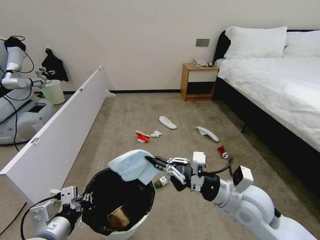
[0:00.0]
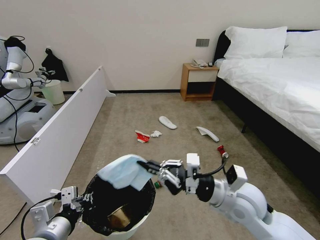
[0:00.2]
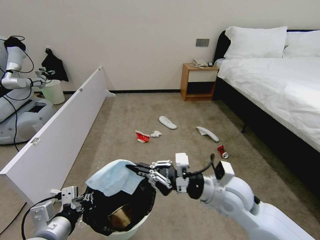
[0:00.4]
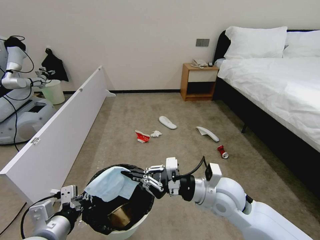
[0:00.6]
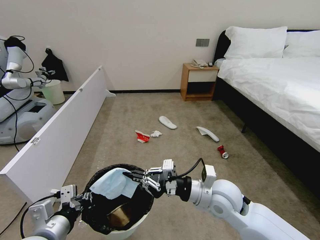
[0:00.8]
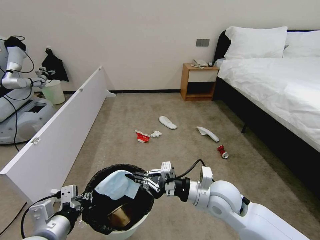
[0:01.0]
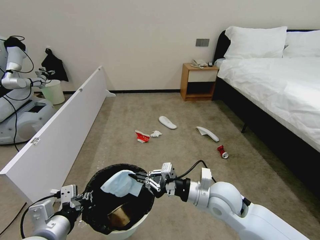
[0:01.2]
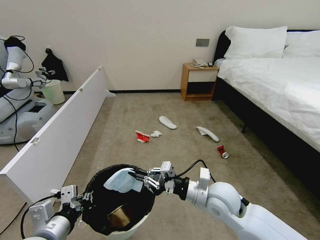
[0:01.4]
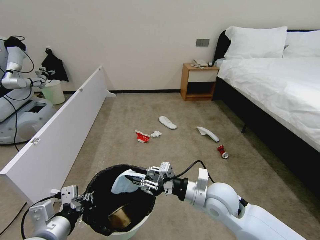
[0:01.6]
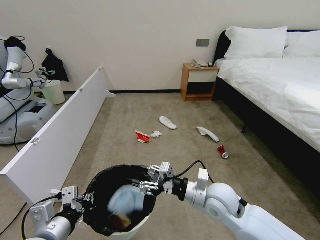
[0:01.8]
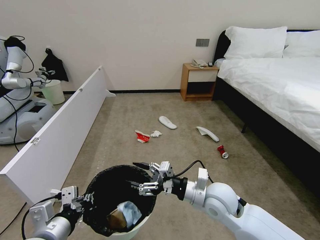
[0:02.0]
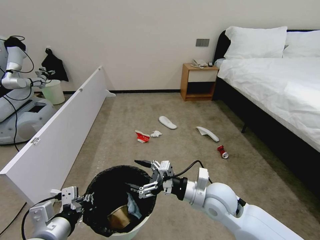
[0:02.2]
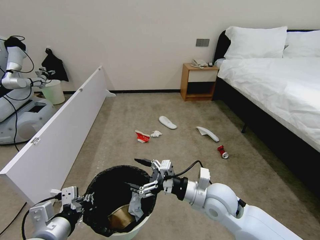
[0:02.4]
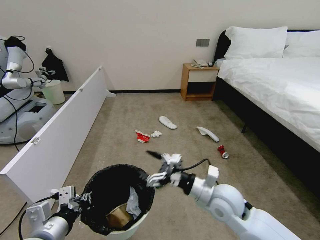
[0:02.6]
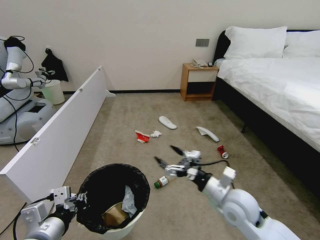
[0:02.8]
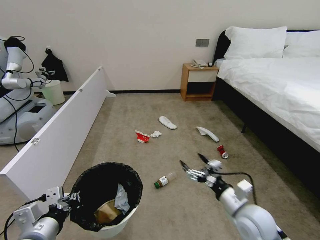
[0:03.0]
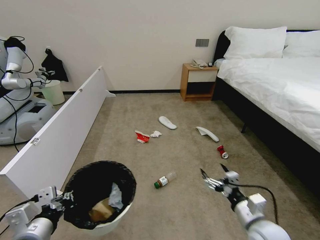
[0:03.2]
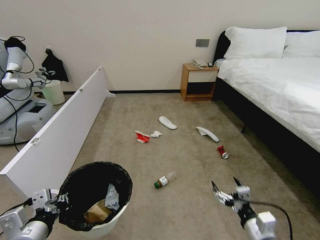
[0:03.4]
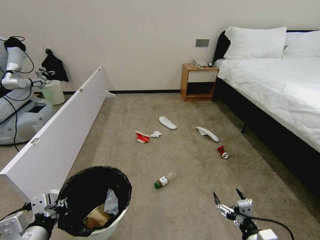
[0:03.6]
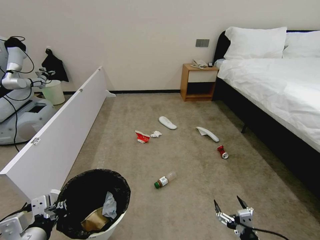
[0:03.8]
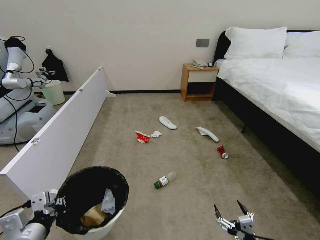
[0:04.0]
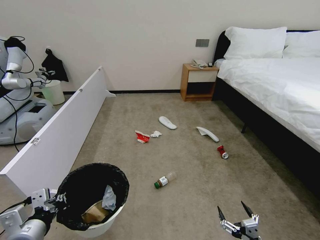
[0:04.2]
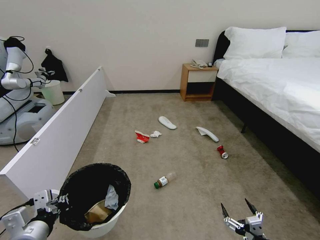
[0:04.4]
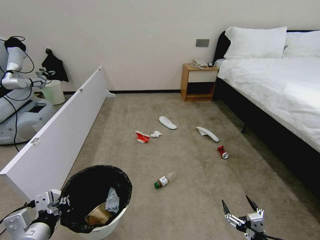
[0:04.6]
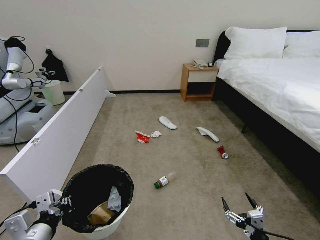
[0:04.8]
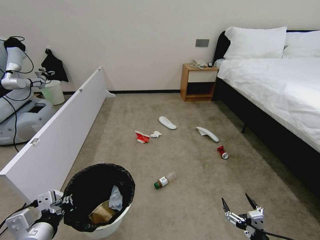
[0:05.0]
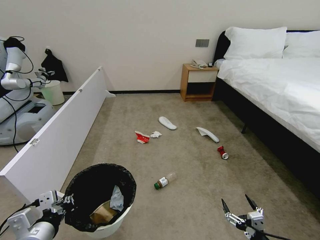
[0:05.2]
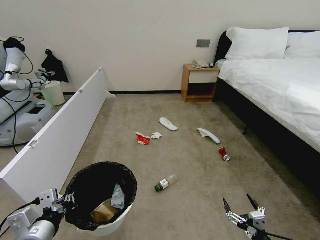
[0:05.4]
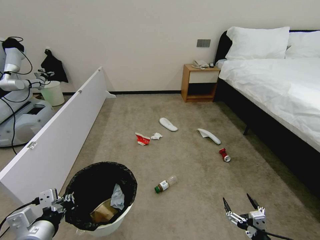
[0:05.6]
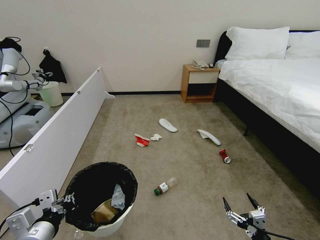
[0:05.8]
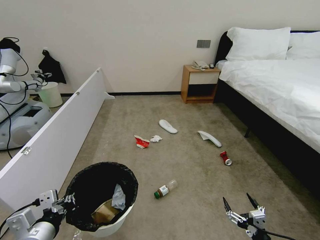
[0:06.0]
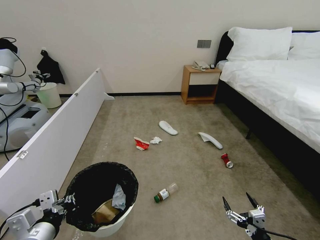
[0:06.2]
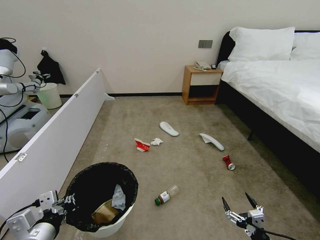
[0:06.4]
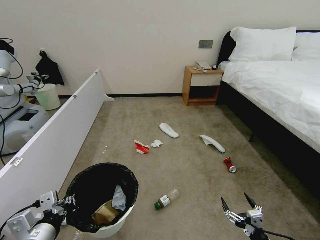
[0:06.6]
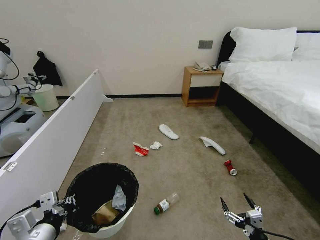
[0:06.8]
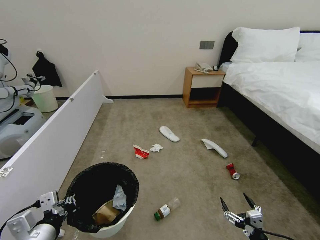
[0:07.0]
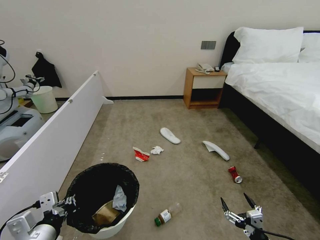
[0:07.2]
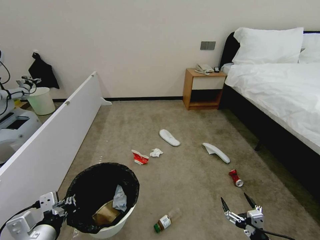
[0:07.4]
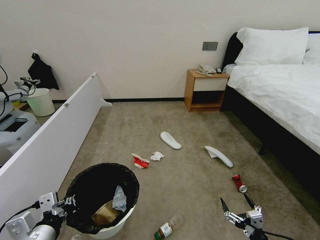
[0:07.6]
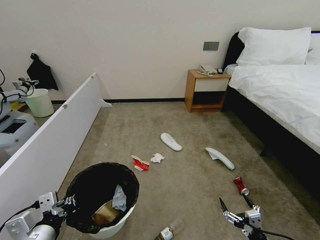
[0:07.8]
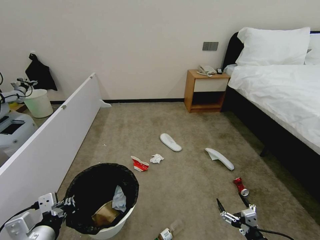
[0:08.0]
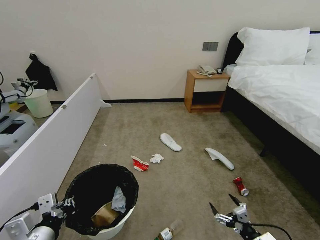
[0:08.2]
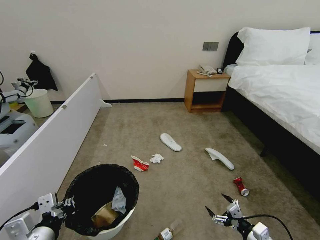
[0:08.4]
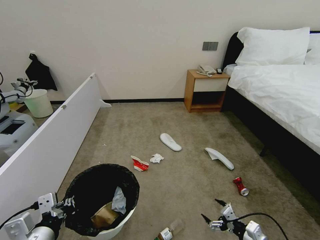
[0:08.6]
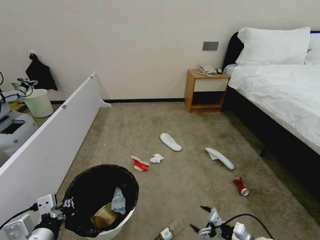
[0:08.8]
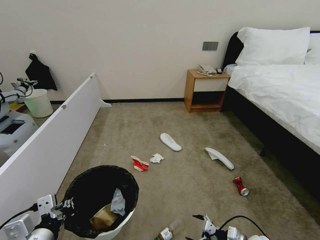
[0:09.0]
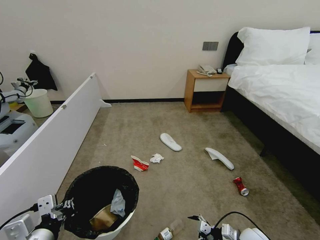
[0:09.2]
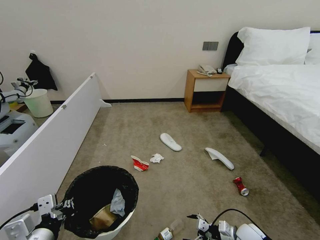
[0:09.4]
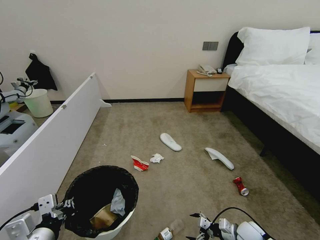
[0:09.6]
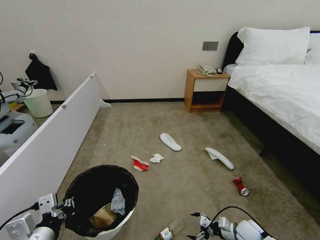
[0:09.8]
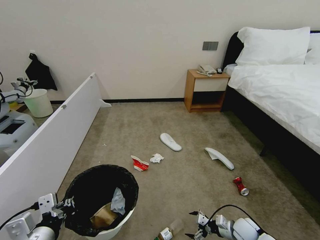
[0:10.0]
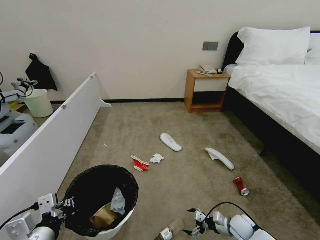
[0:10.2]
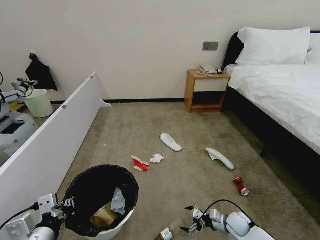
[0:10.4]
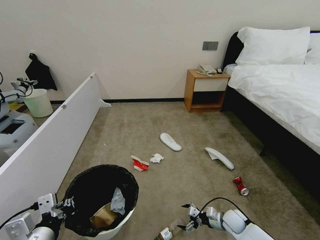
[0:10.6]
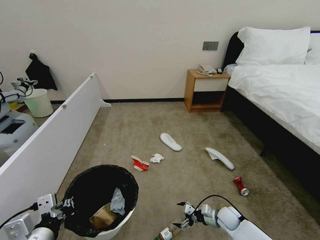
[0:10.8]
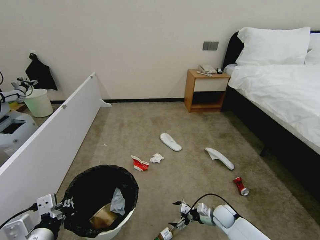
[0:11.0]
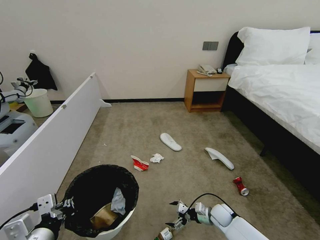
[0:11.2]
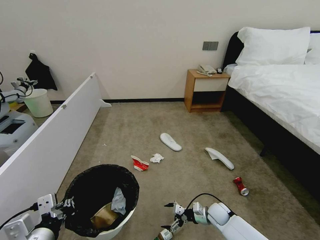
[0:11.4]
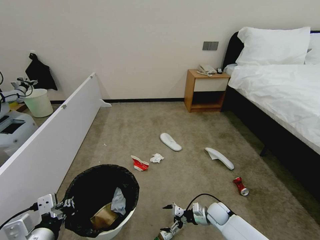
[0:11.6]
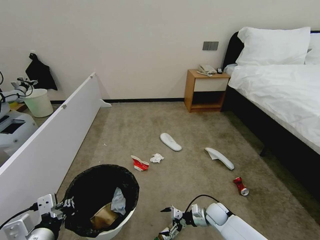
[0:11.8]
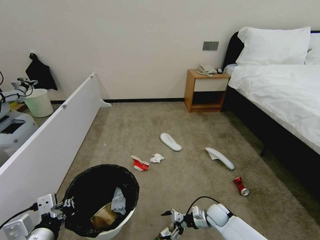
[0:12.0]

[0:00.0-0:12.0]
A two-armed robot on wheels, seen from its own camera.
Task of the whole recording: Pick up the trash bin, then pick up the garbage from the floor and place it into the trash bin.
0:00.0 to 0:01.6: The right gripper moves to the left, approximately 5 cm.
0:01.6 to 0:03.0: The right gripper moves to the right, some 10 cm, and opens up.
0:03.0 to 0:04.4: The right gripper moves backward and downward, about 20 cm.
0:04.4 to 0:06.0: There are only small adjustments of the grippers.
0:06.0 to 0:07.6: The two grippers keep their place.
0:07.6 to 0:09.0: The right gripper shifts roughly 15 cm forward and downward.
0:09.0 to 0:10.4: The right gripper shifts approximately 10 cm forward.
0:10.4 to 0:12.0: The right gripper travels to the left by some 10 cm.

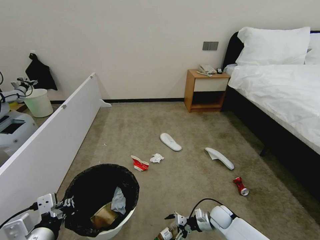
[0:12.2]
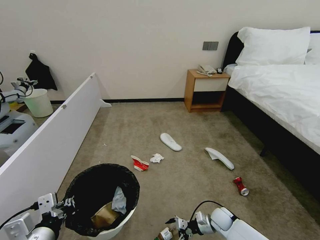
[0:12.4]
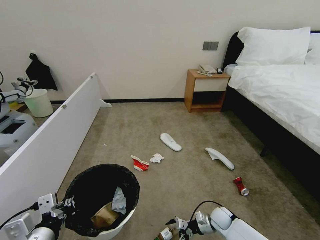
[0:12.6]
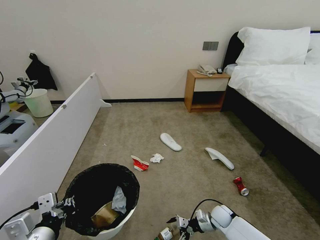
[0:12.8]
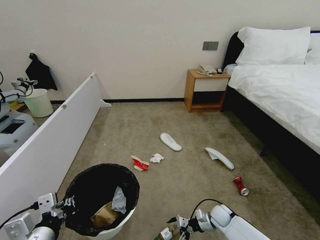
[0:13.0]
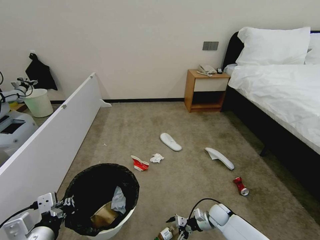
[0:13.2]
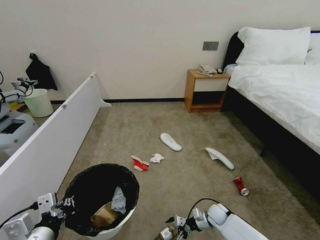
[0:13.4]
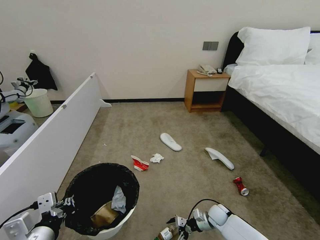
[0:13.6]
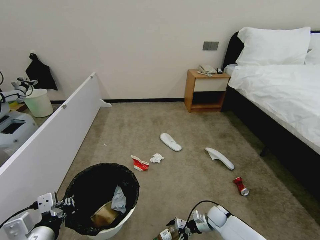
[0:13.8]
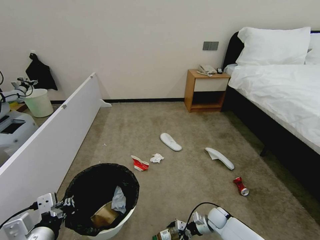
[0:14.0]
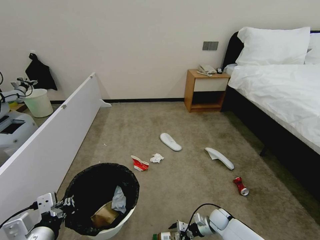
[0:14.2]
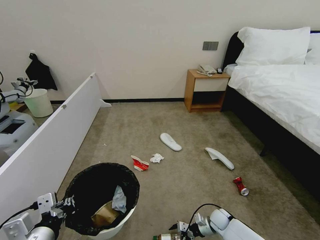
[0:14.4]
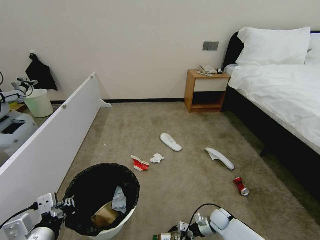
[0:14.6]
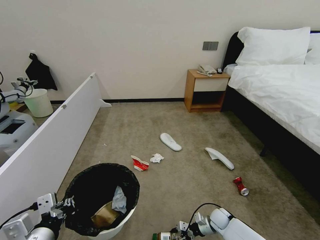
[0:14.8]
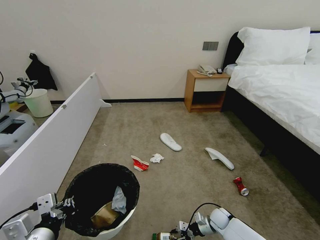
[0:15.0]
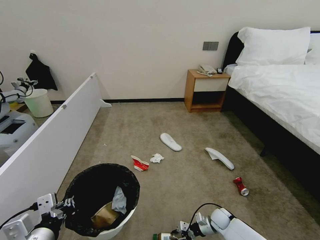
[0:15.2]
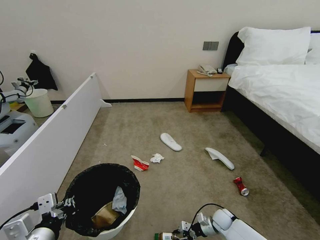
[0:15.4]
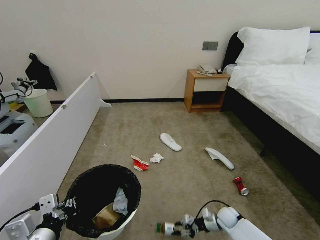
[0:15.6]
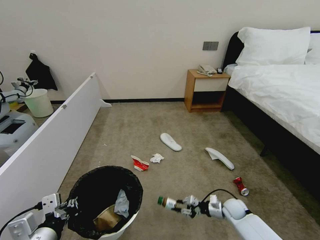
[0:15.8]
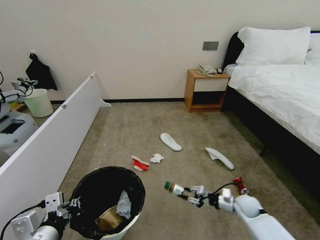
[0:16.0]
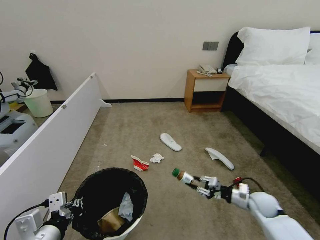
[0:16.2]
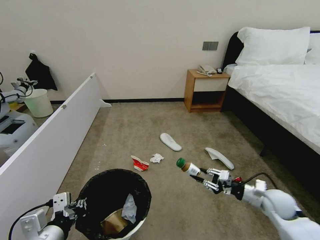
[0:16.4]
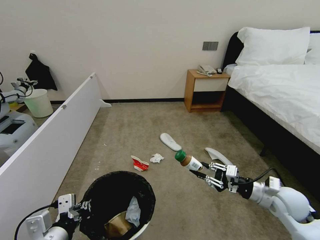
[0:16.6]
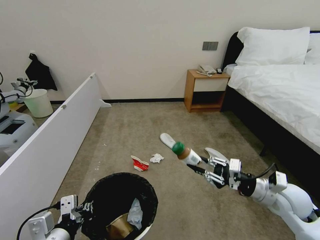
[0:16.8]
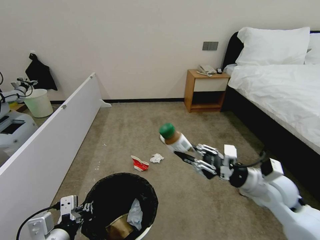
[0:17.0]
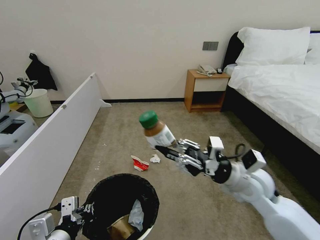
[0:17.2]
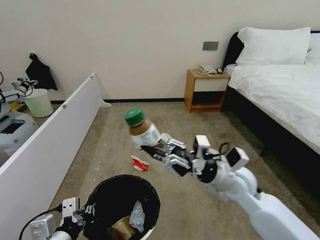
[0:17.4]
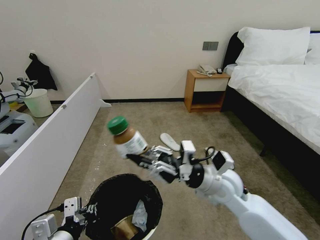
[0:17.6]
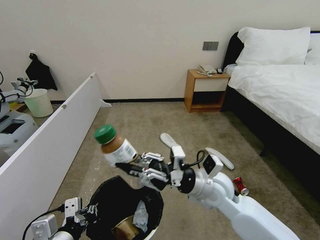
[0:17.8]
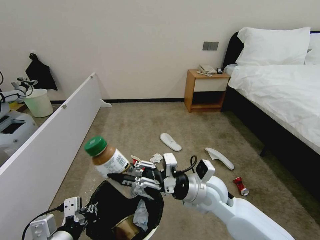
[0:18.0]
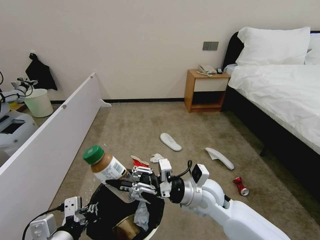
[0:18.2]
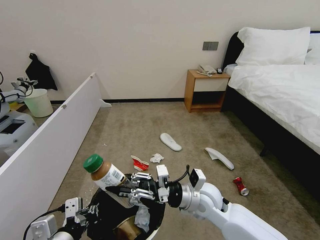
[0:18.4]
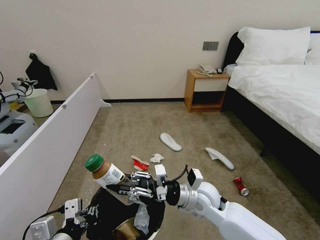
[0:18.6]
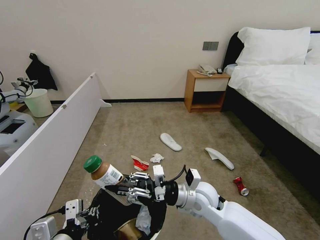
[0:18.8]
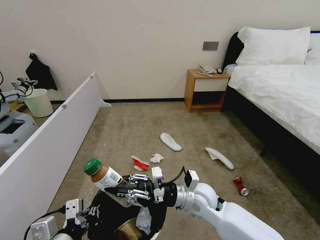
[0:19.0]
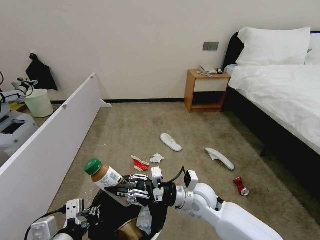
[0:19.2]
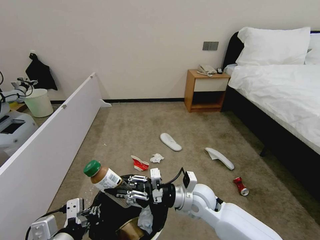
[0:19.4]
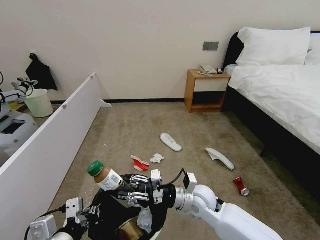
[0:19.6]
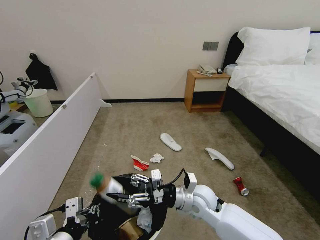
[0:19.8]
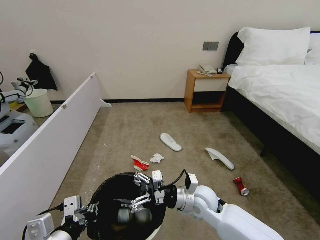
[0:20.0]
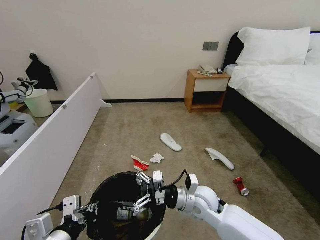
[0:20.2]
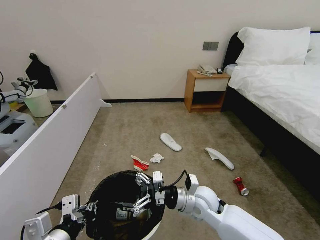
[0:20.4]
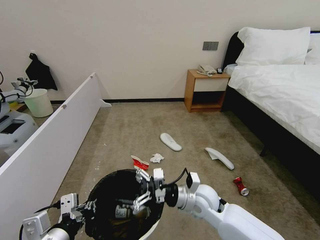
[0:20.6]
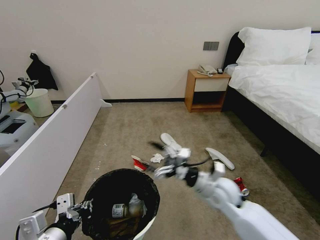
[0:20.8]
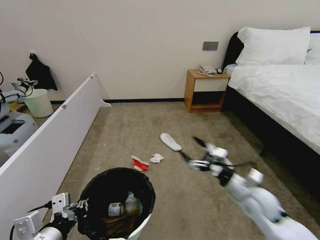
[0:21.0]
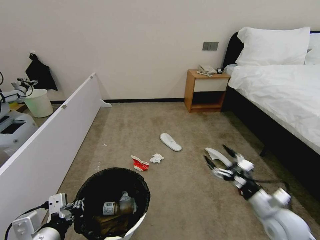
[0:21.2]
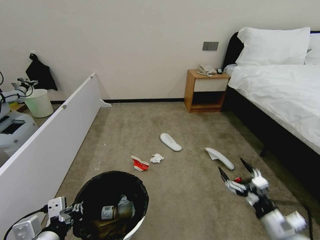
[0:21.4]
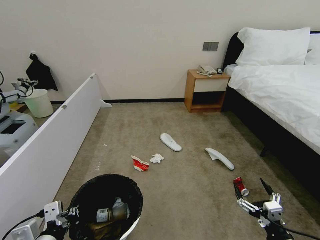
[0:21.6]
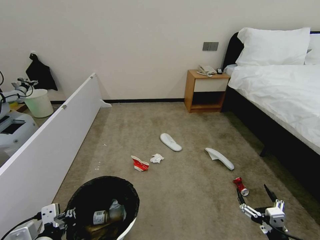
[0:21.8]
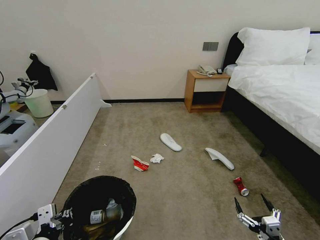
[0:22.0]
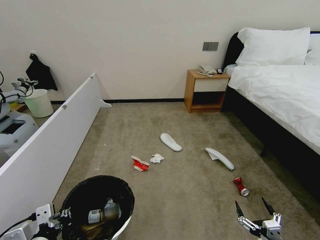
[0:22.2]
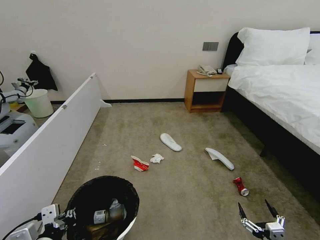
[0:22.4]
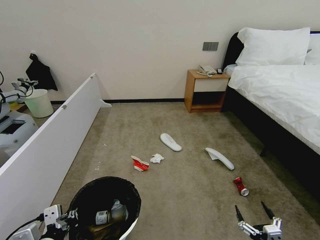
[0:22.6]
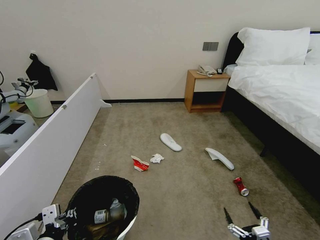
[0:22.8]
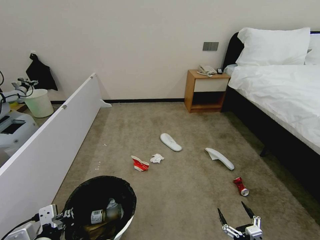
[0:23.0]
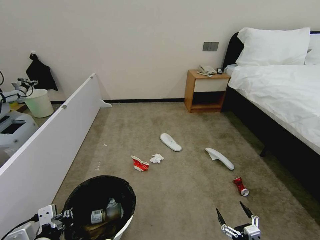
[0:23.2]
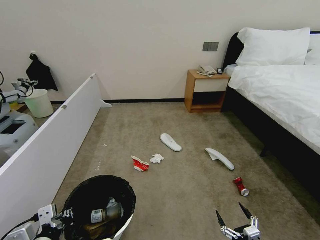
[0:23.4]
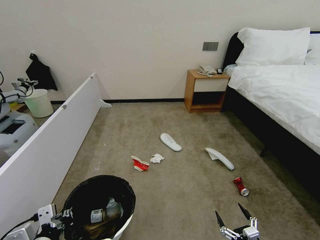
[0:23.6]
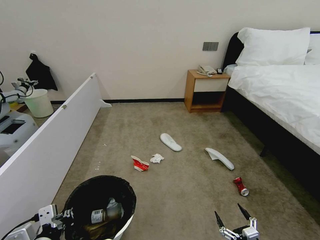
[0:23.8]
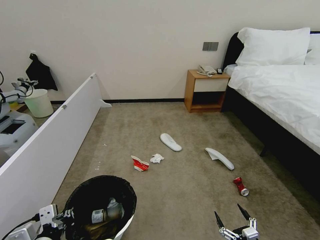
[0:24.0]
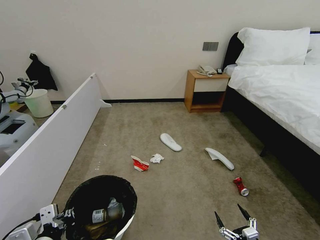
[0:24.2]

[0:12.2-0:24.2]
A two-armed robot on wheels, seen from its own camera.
Task of the whole recording: Pick up the trash bin, then pick up the garbage from the floor and place it into the trash bin.
0:12.2 to 0:13.8: The grippers move only a little.
0:13.8 to 0:15.2: The right gripper closes up.
0:15.2 to 0:16.6: The right gripper is displaced upward by approximately 30 cm.
0:16.6 to 0:18.2: The right gripper travels to the left by roughly 25 cm.
0:18.2 to 0:19.8: The right gripper opens its fingers.
0:19.8 to 0:21.2: The right gripper travels to the right by roughly 20 cm, and opens its fingers.
0:21.2 to 0:22.6: The right gripper moves backward and downward, approximately 20 cm.
0:22.6 to 0:24.2: The grippers move only a little.
